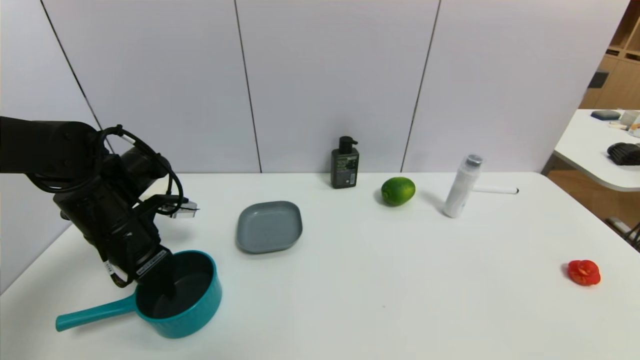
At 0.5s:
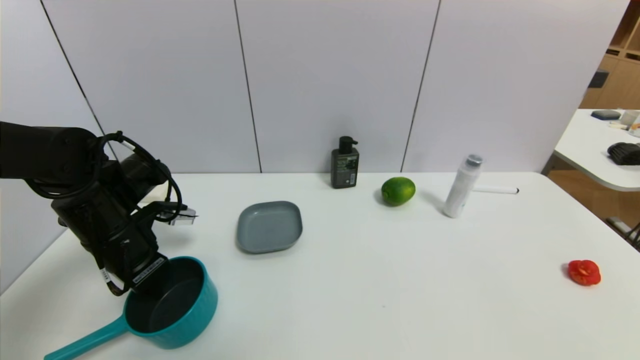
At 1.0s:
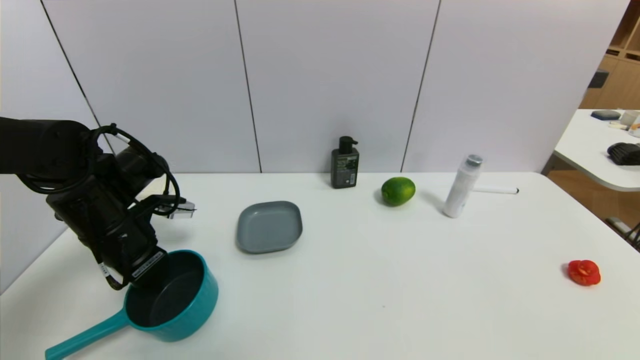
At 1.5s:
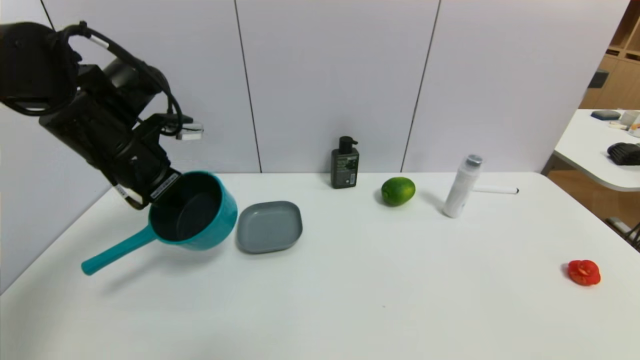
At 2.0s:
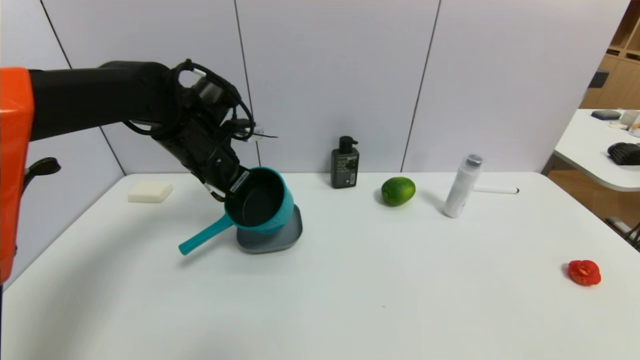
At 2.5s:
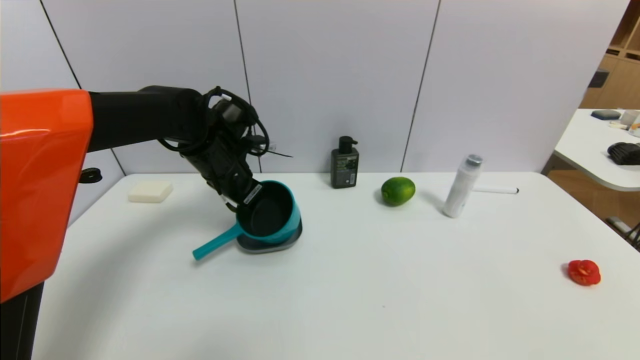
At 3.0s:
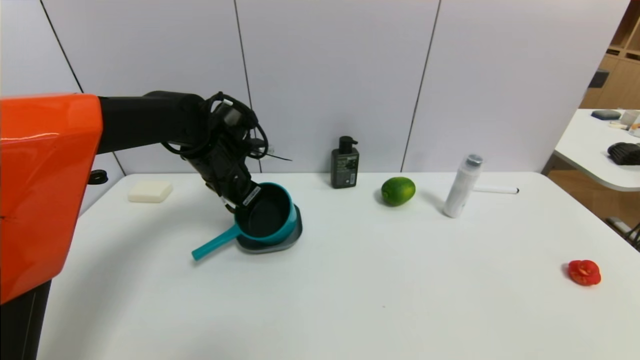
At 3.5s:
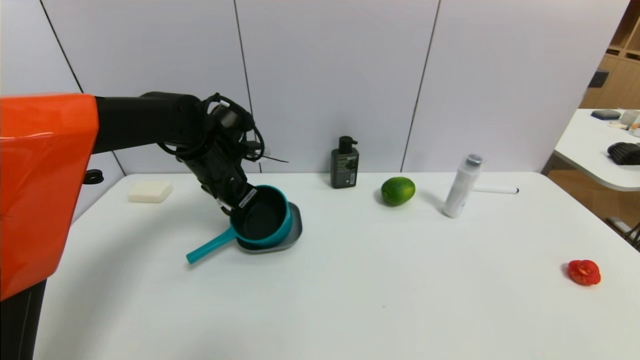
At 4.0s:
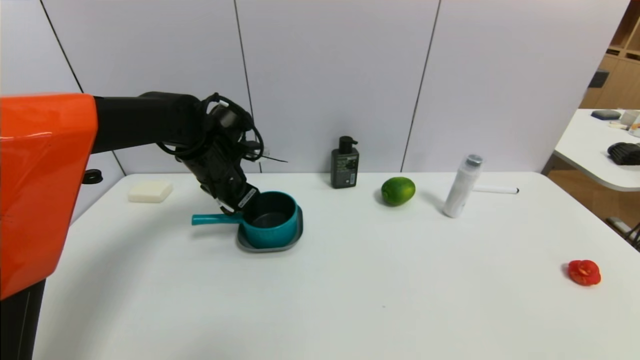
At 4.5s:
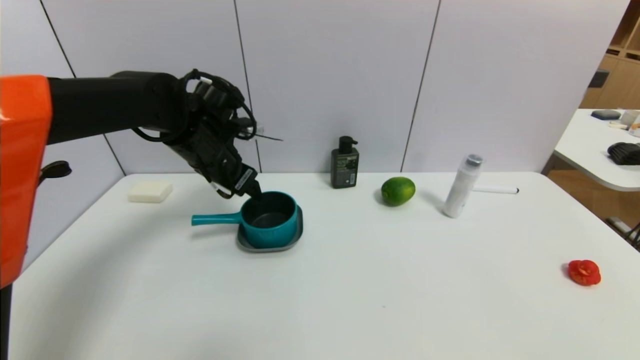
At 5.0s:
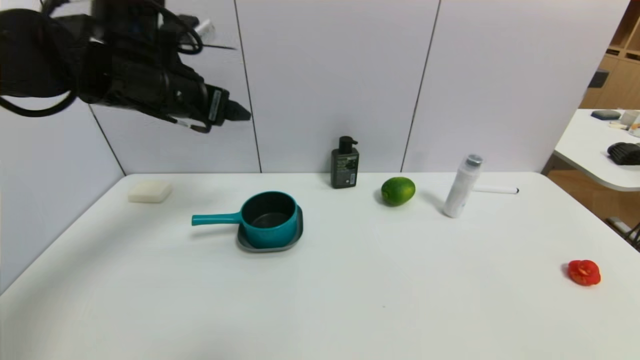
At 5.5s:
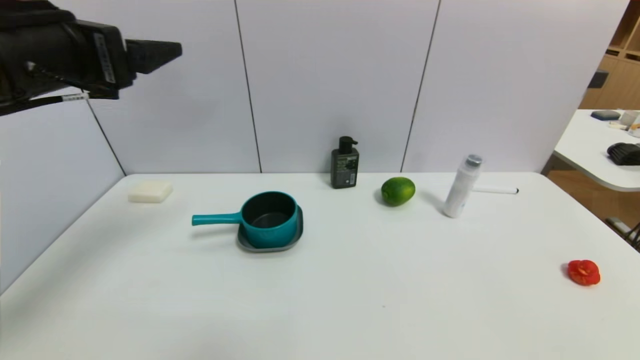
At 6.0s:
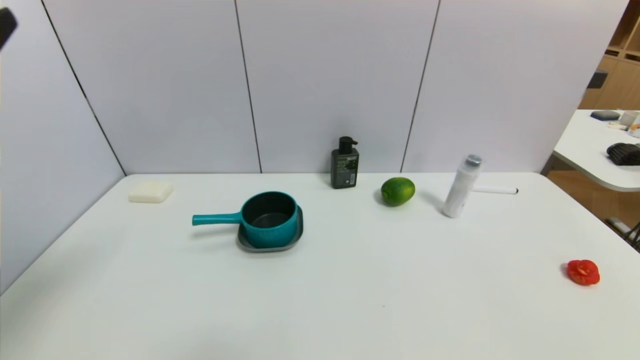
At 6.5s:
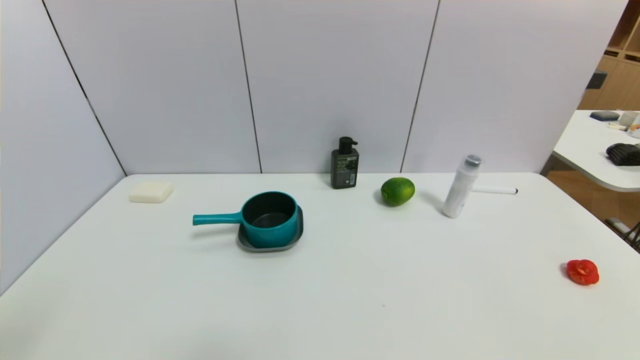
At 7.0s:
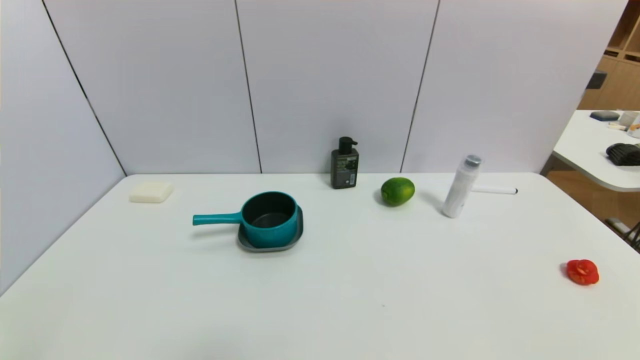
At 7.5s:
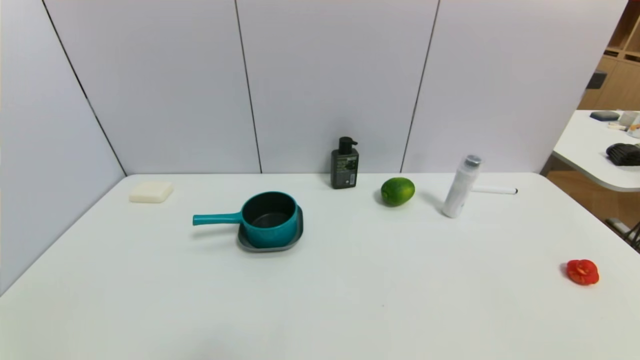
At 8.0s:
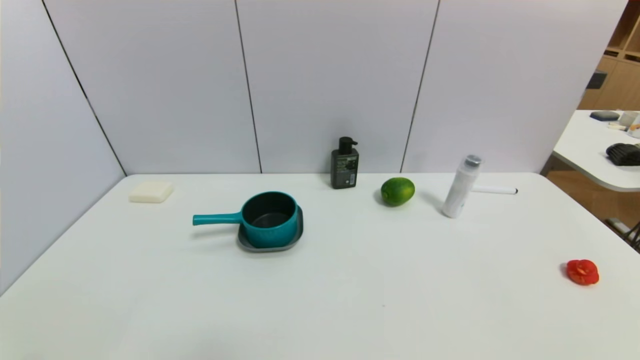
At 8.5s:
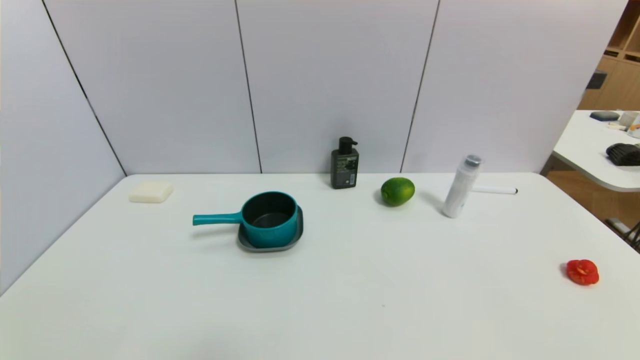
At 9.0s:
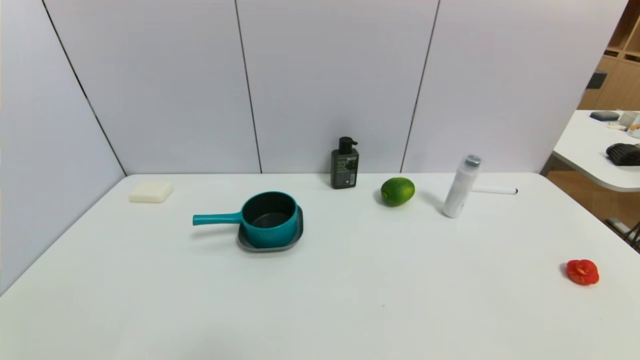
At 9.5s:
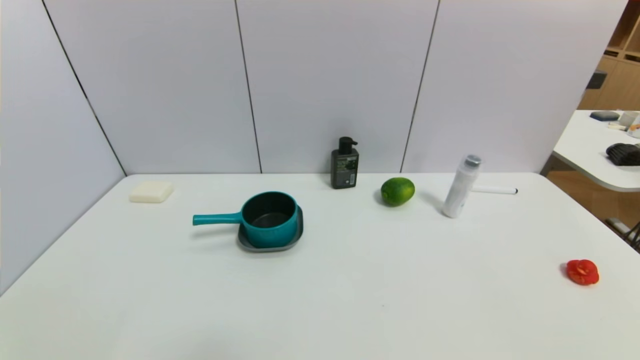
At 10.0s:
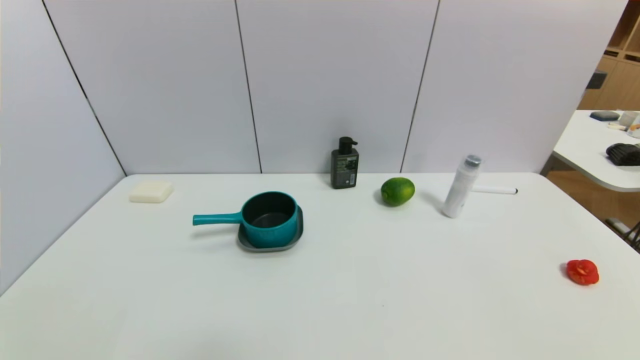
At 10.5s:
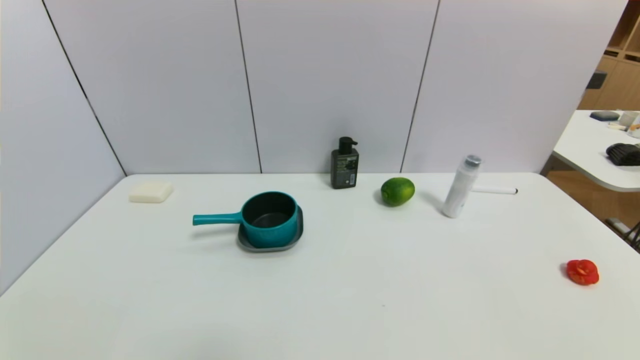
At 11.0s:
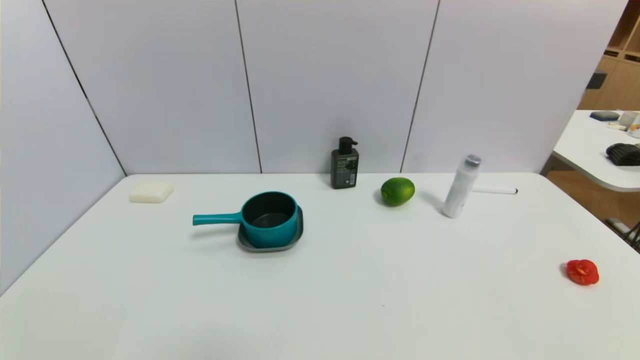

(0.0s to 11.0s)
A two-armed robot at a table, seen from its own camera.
Task of the whole recording: use a gripper to pick the target object and place on the dish.
Step, 1.0s - 4.5s: Place the blue pot on the dish with the left gripper.
0.0s - 2.0s: The left gripper heads to the right, forward and upward, covering about 15 cm, and closes.
2.0s - 3.5s: The grippers make only small movements.
3.5s - 5.5s: The left gripper shifts roughly 25 cm backward, upward and to the left, and opens.
5.5s - 7.5s: The left gripper moves backward and downward, about 35 cm.
9.0s - 11.0s: Neither gripper changes place.
